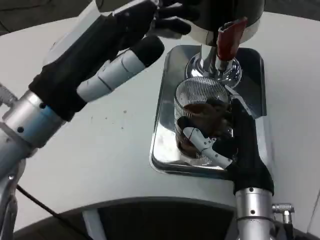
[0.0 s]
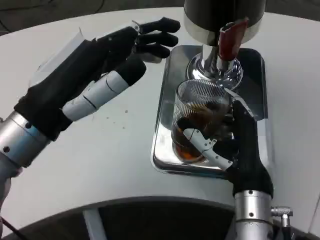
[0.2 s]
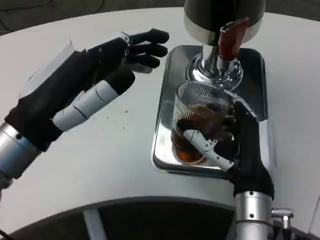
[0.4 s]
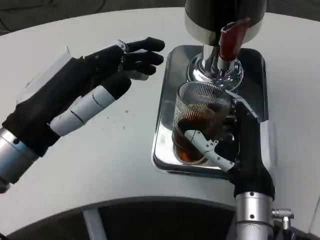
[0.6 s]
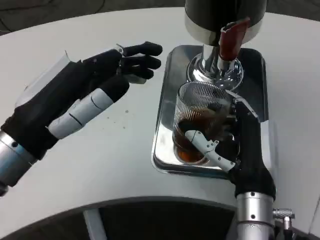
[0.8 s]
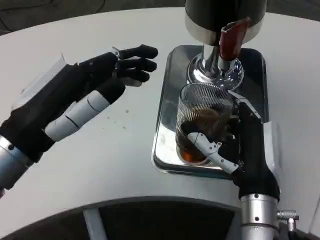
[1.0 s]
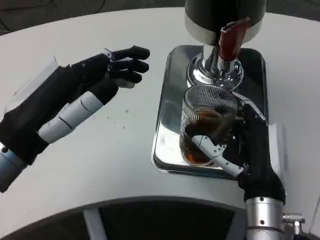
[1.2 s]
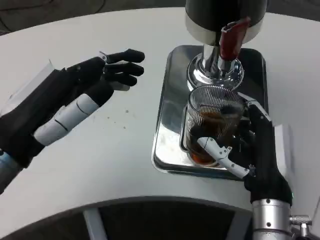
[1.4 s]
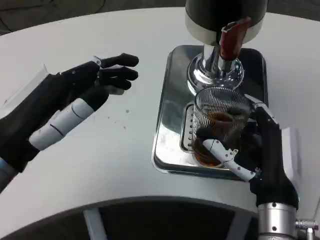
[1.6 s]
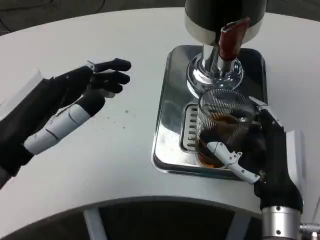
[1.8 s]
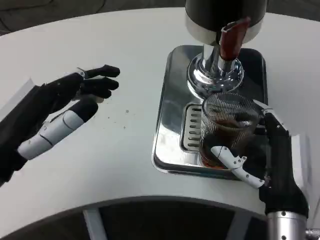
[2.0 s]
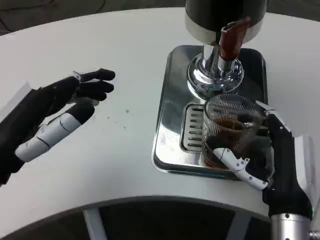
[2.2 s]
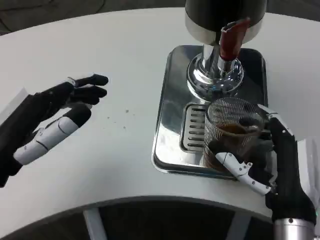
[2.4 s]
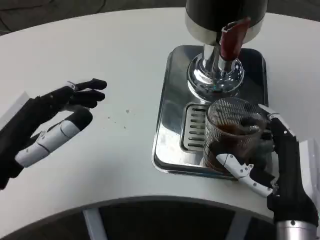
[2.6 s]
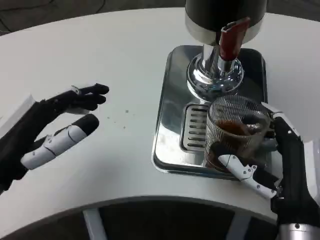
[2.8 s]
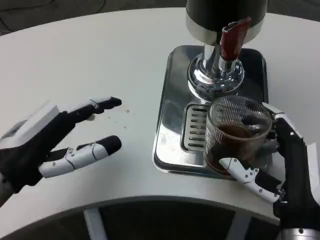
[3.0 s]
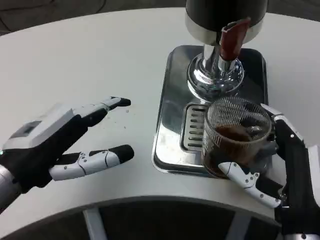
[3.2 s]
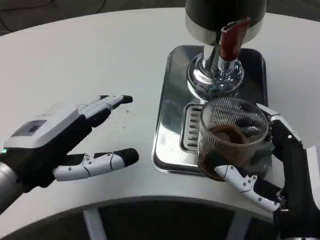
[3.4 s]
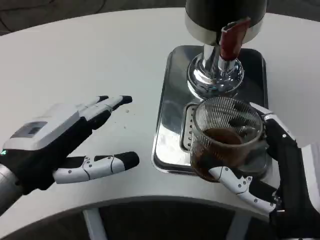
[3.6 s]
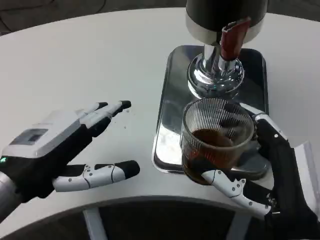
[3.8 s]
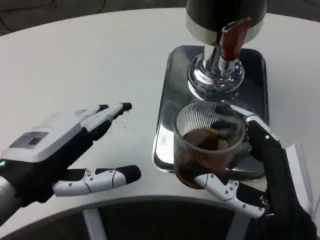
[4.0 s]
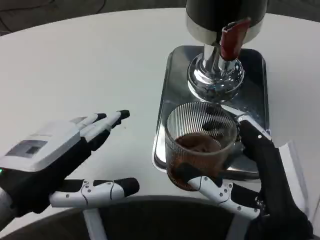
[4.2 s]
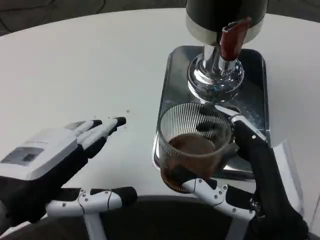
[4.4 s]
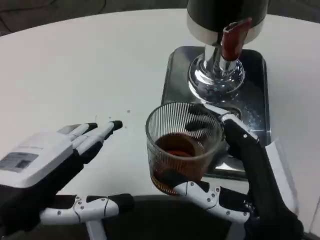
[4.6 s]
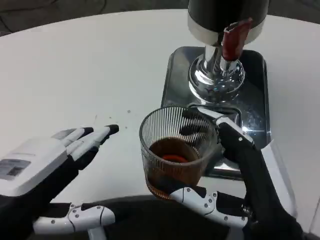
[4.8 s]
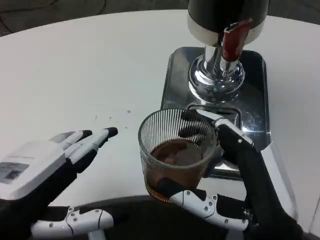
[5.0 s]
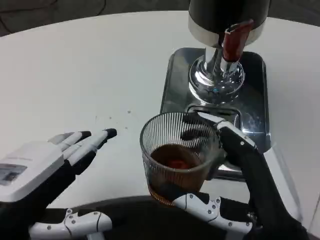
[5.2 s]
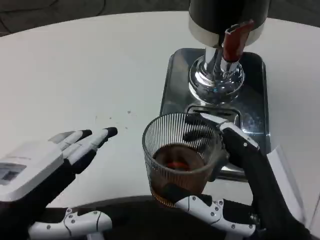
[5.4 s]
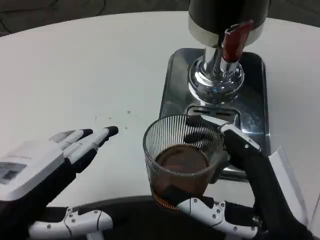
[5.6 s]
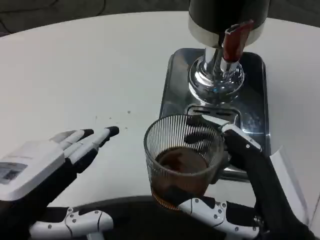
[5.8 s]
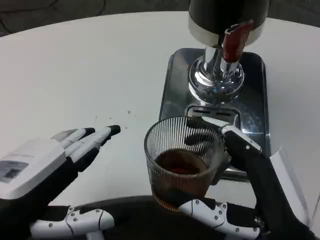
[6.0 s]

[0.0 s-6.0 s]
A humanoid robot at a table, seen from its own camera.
Task of the whole recording: Grasp the cup under the faucet to collect the drink, then remove the cup.
0.0 to 1.6 s: The left hand changes place by approximately 5 cm.
3.0 to 4.4 s: The left hand changes place by roughly 5 cm.

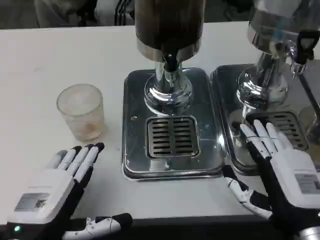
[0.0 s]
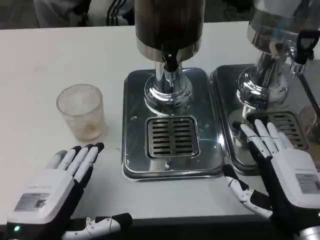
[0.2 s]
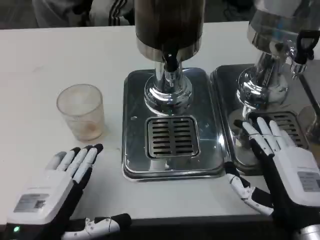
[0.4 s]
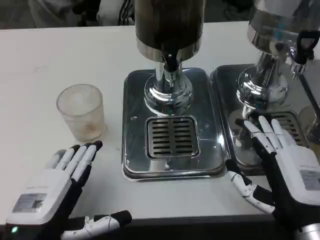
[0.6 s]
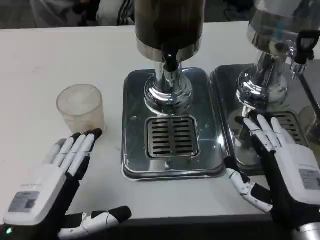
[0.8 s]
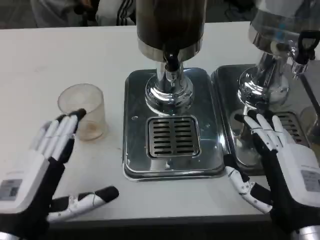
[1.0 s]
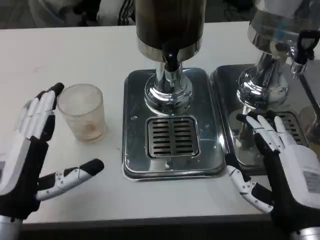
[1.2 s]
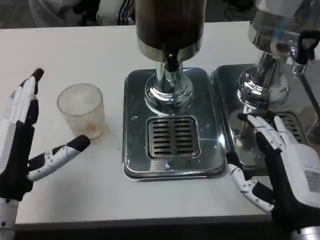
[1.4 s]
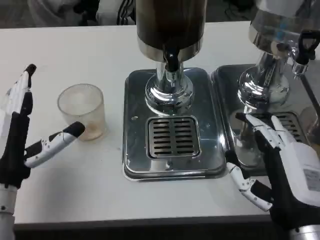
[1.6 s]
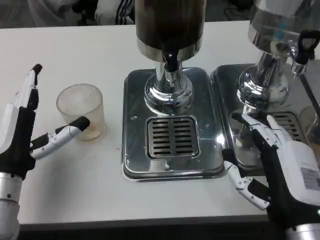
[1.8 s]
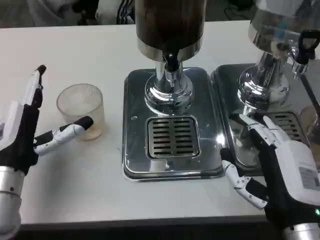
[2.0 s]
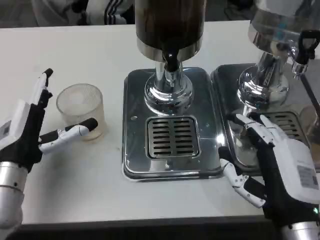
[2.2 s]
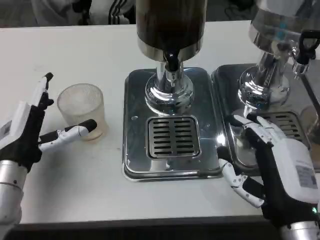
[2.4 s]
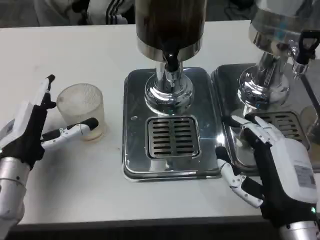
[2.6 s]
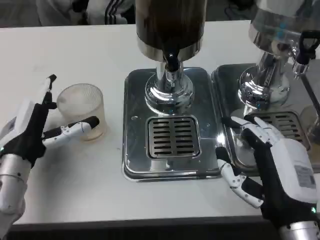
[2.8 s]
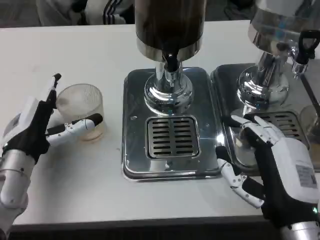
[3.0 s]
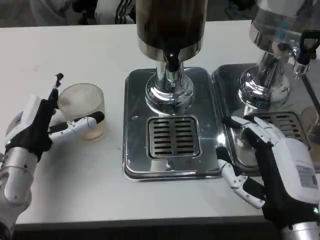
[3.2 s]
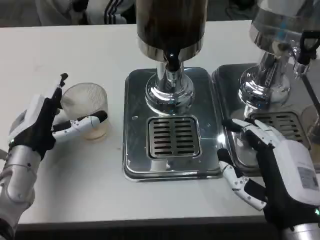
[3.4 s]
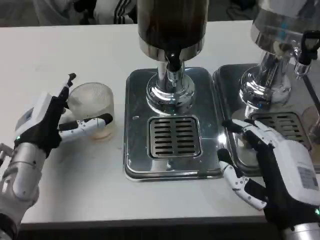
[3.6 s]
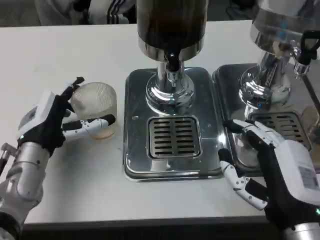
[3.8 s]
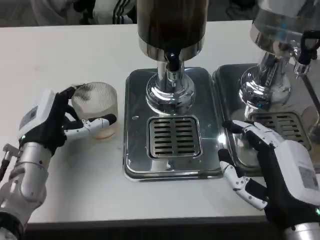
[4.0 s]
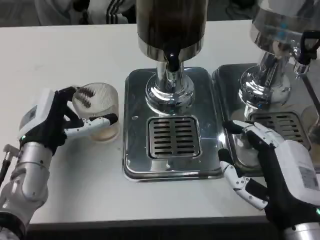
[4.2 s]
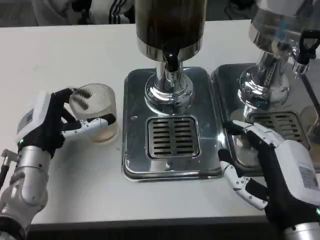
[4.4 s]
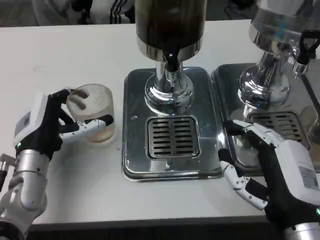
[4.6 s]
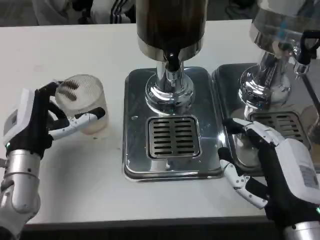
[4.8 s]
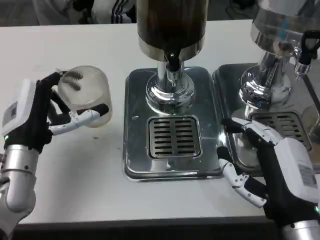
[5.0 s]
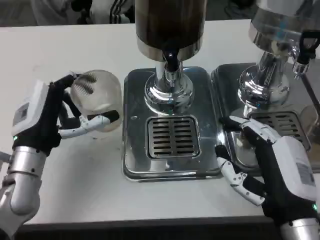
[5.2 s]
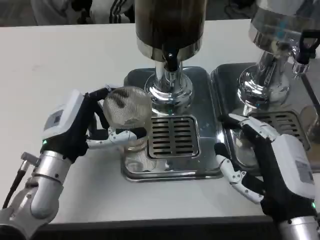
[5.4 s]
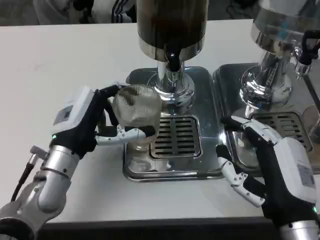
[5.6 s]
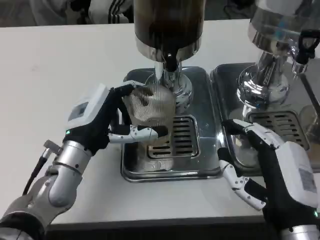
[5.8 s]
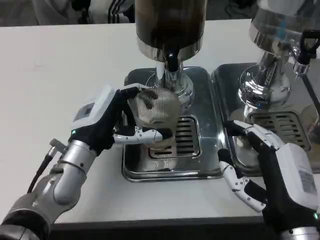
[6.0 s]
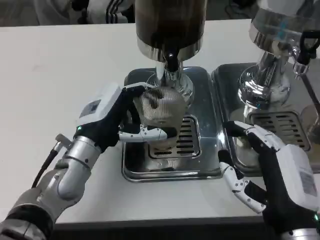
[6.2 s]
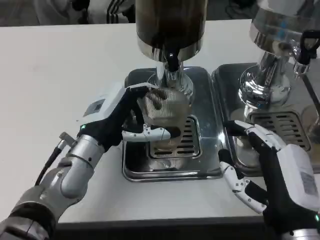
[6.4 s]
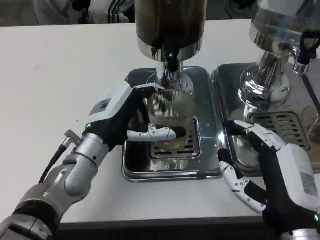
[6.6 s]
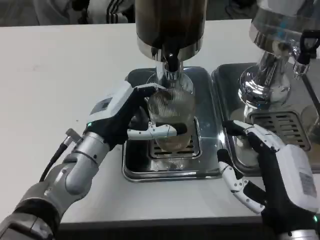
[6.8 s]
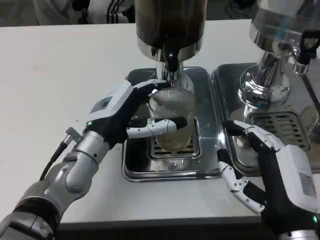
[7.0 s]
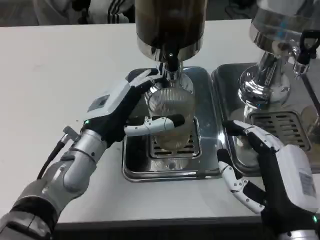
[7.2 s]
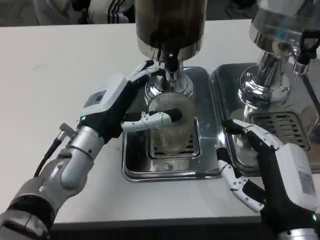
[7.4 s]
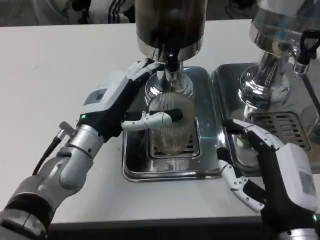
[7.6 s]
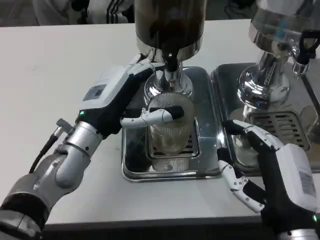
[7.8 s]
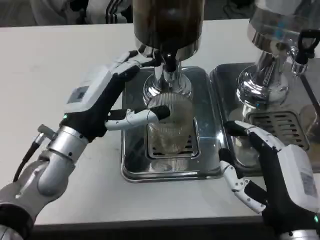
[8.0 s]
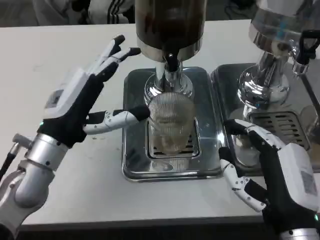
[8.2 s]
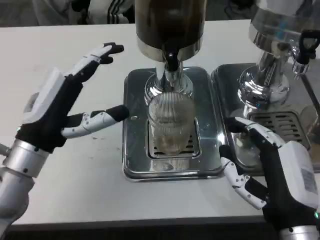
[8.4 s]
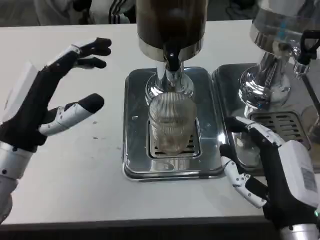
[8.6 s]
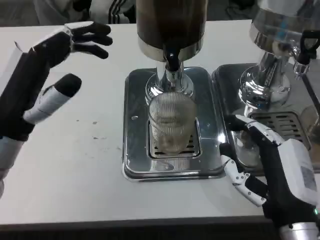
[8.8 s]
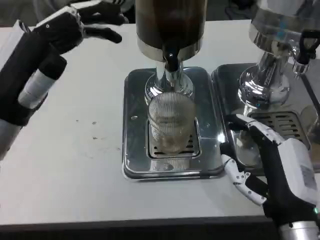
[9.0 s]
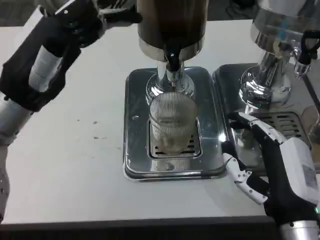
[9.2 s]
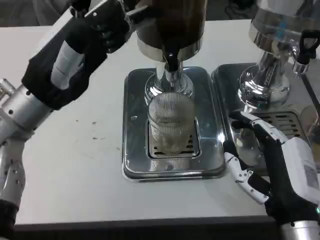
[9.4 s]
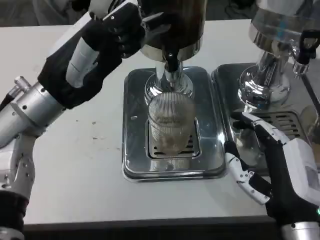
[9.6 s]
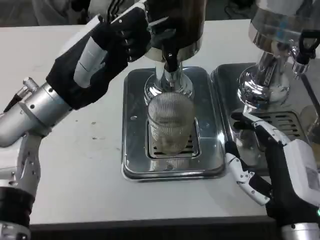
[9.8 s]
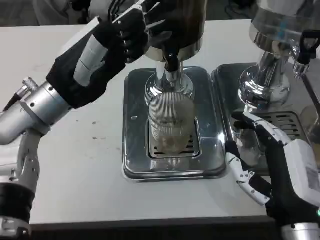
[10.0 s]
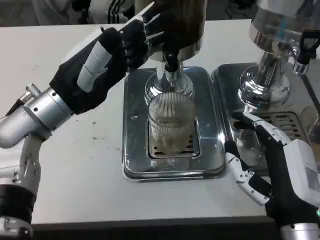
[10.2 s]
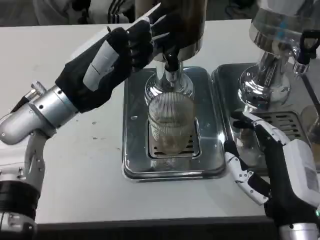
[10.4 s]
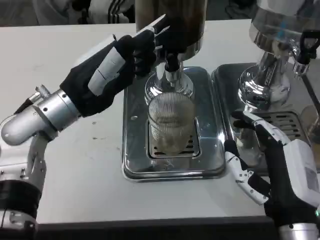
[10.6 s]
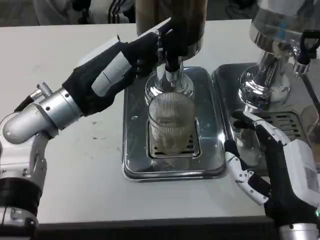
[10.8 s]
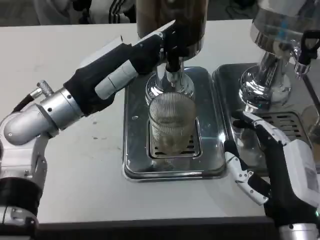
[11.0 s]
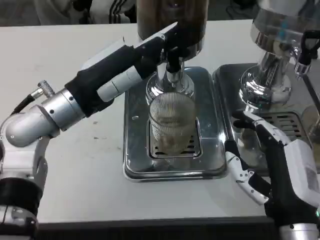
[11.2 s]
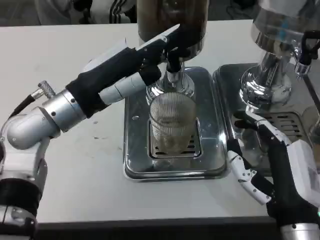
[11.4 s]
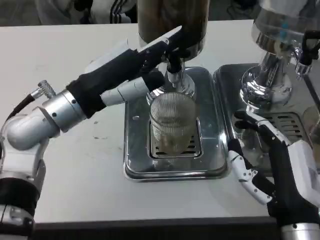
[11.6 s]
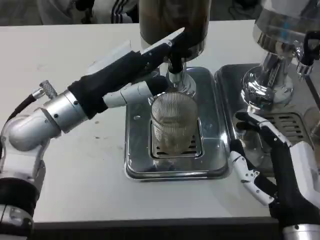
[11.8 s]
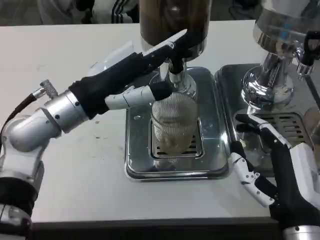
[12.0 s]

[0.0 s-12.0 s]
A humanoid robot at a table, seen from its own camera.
Task of the whole recording: Grasp the cup under the faucet to collect the drink, then remove the cup.
0.0 to 1.6 s: The left hand travels forward by roughly 10 cm.
1.6 to 3.0 s: The left hand travels forward by approximately 5 cm.
3.0 to 4.4 s: The hands move only a little.
4.4 to 6.0 s: The left hand goes approximately 5 cm to the right.
6.0 to 7.6 s: There are only small adjustments of the hands.
7.6 to 9.0 s: The left hand heads to the left and upward, covering about 10 cm.
9.0 to 10.4 s: The left hand goes roughly 5 cm forward.

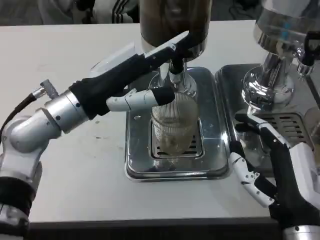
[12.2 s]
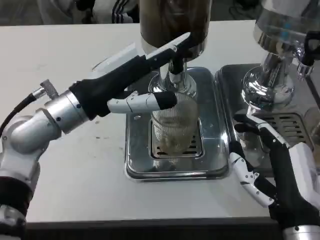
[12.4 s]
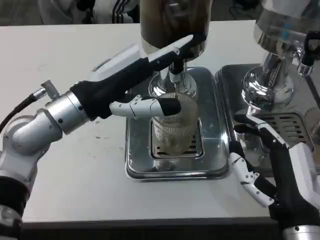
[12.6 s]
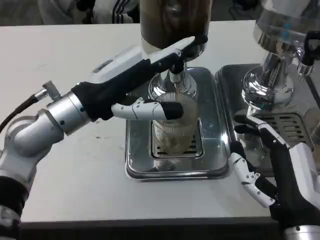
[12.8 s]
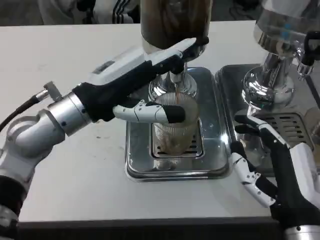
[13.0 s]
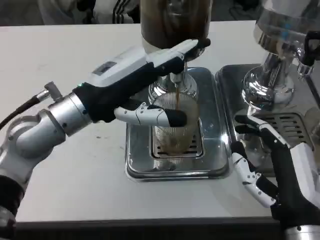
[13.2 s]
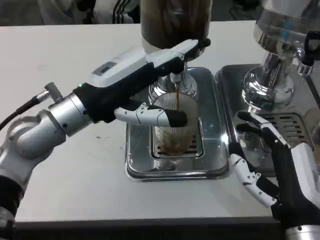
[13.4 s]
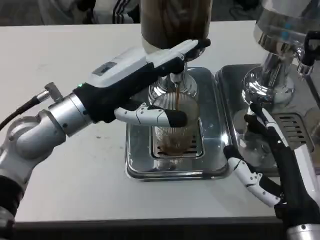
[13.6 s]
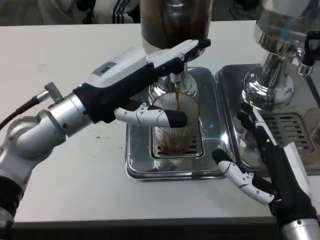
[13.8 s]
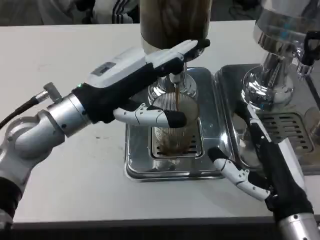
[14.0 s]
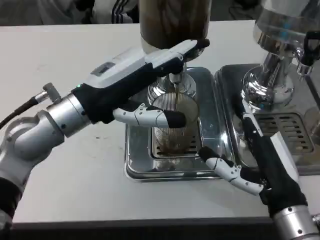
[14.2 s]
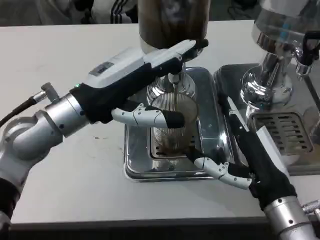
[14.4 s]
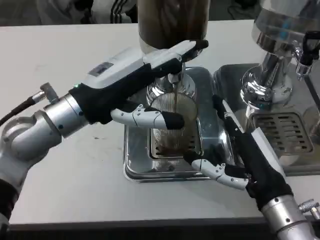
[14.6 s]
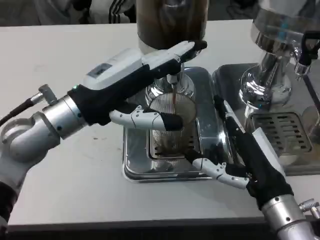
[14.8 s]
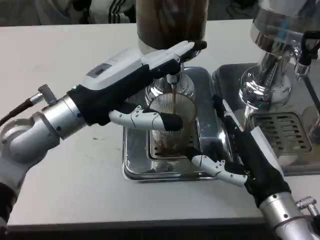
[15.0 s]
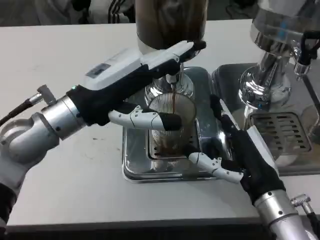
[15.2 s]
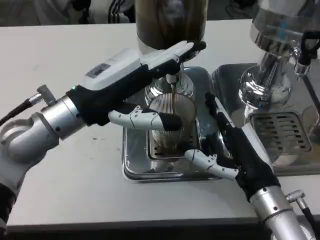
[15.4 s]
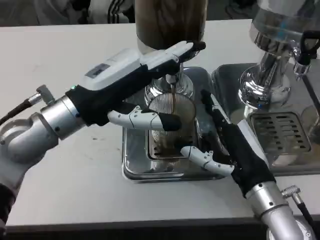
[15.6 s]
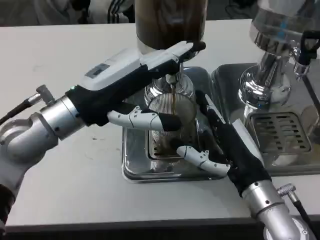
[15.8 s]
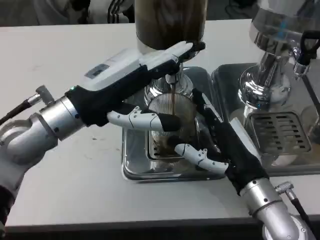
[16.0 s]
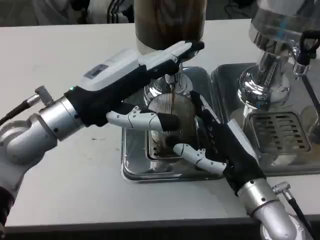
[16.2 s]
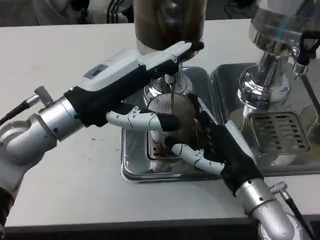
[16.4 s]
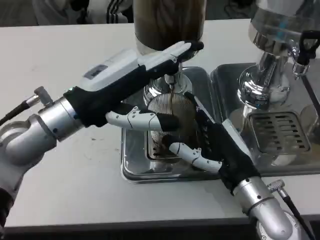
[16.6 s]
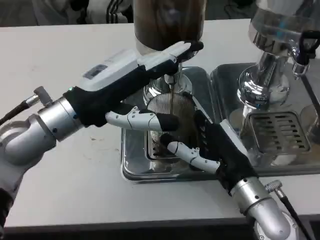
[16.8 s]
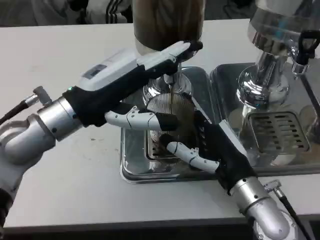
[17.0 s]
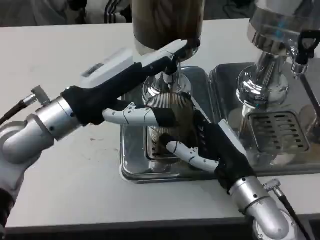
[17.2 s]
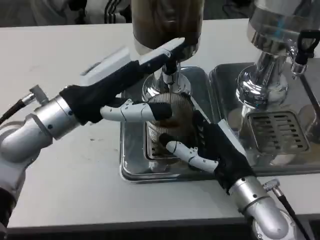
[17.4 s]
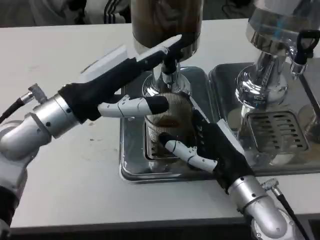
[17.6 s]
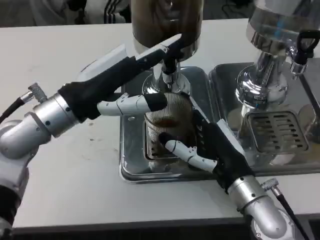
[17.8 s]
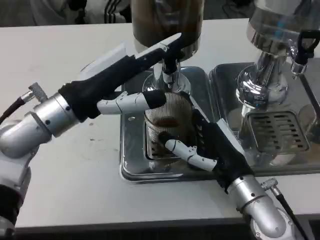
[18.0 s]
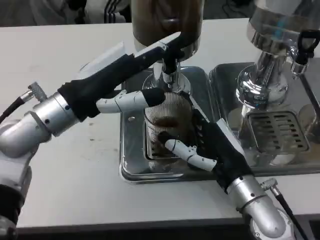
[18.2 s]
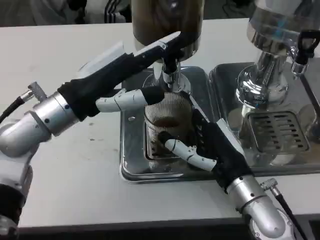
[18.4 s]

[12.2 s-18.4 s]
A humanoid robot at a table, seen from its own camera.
Task of the whole recording: Grasp the cup under the faucet to collect the drink, then remove the cup.
13.8 to 15.4 s: The right hand travels forward by about 5 cm.
15.4 to 16.8 s: The hands move only a little.
